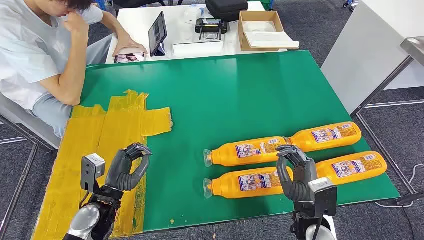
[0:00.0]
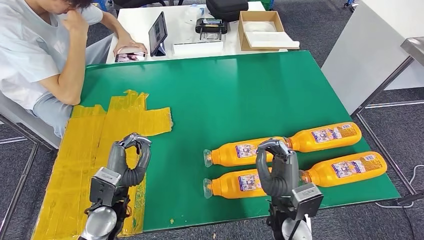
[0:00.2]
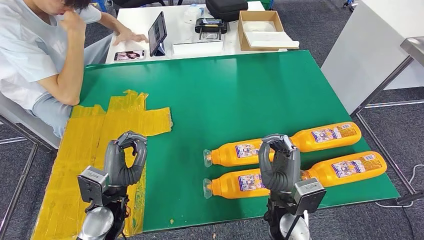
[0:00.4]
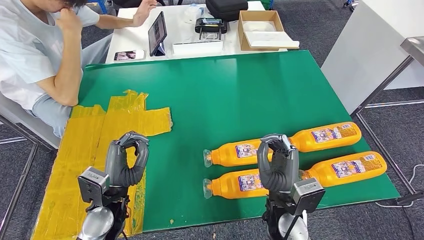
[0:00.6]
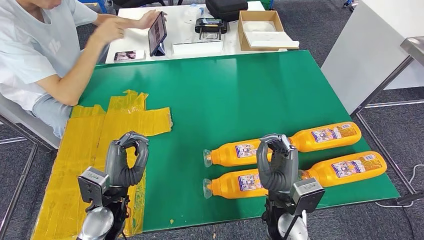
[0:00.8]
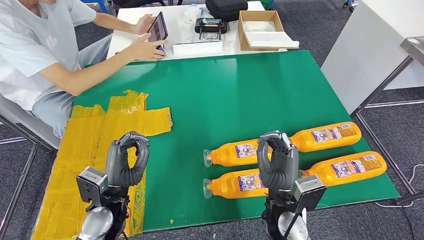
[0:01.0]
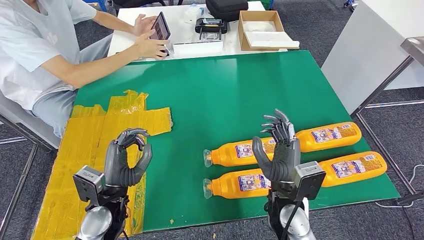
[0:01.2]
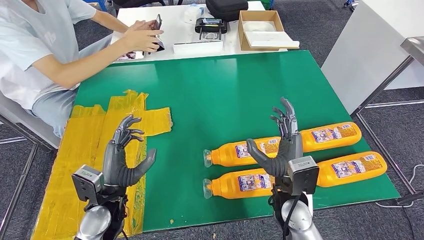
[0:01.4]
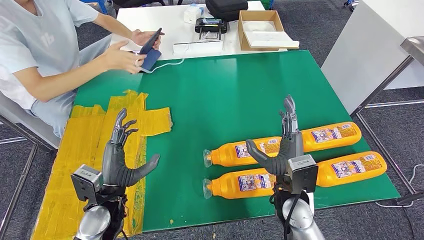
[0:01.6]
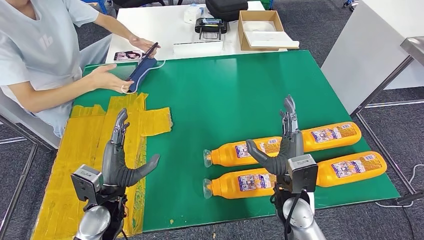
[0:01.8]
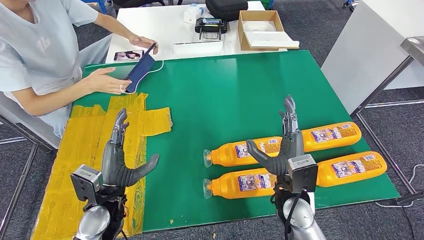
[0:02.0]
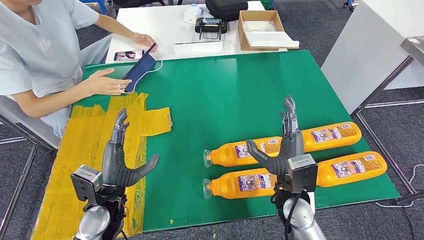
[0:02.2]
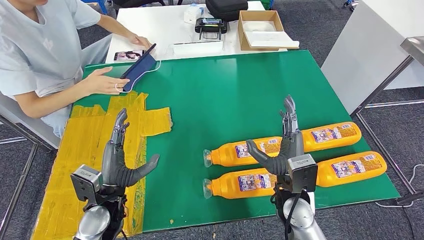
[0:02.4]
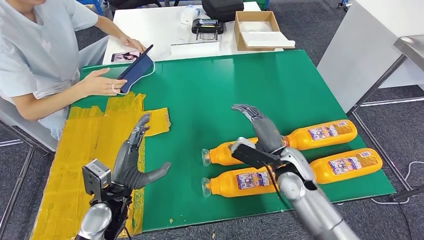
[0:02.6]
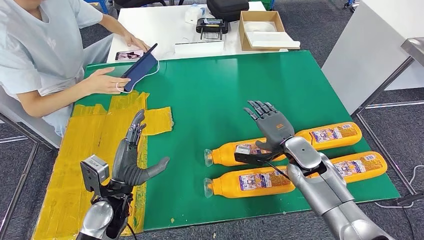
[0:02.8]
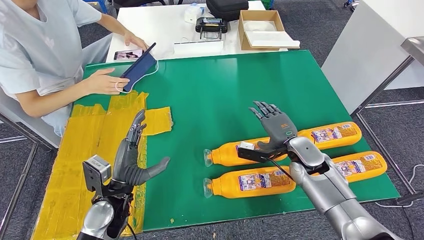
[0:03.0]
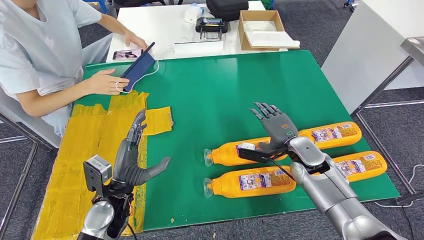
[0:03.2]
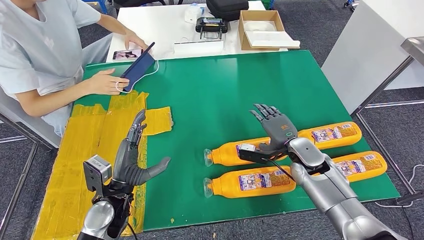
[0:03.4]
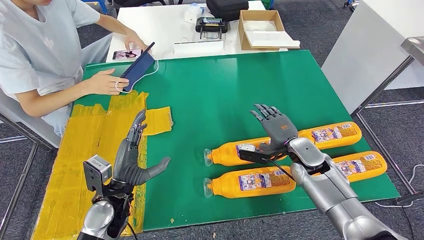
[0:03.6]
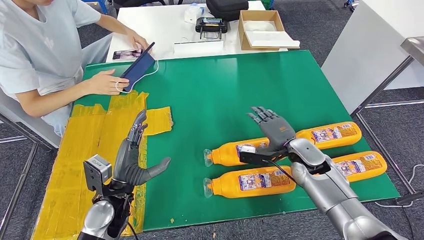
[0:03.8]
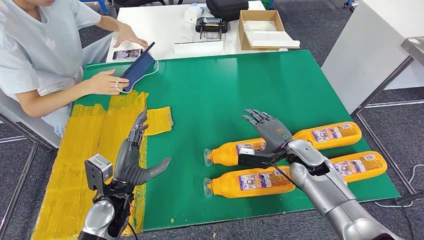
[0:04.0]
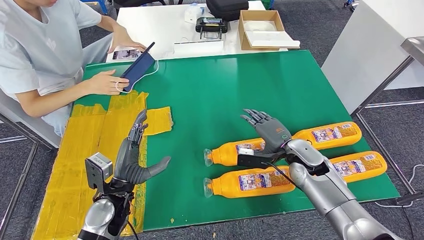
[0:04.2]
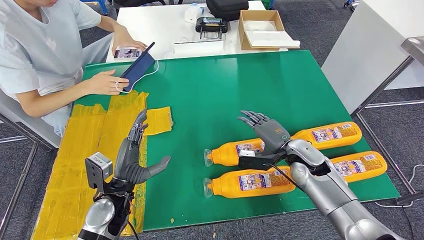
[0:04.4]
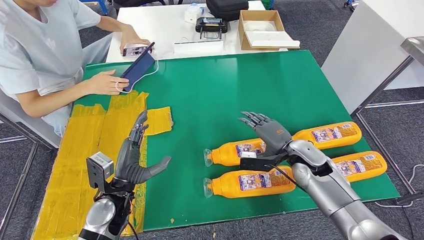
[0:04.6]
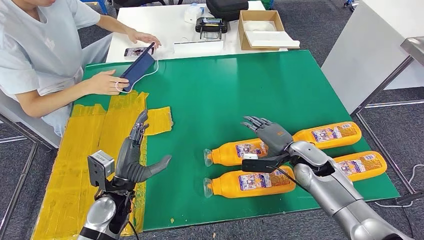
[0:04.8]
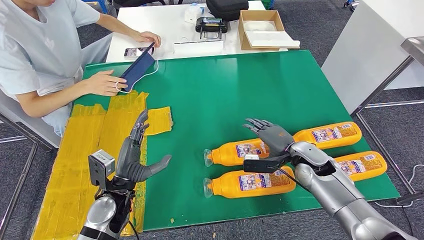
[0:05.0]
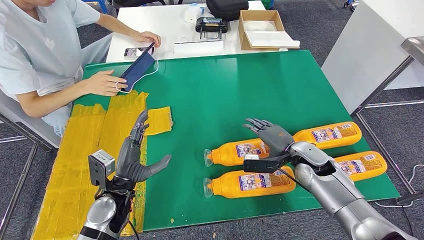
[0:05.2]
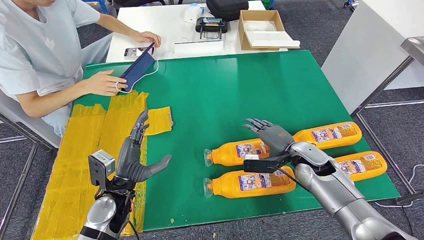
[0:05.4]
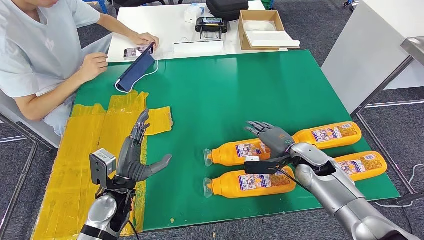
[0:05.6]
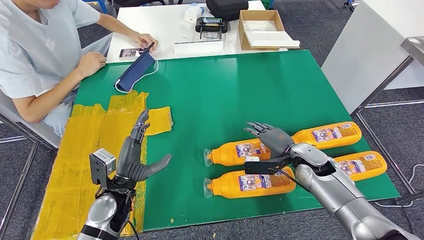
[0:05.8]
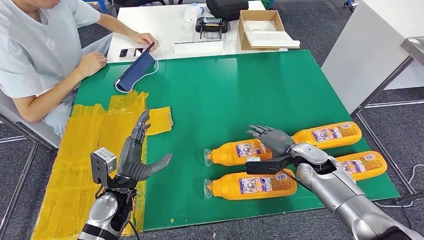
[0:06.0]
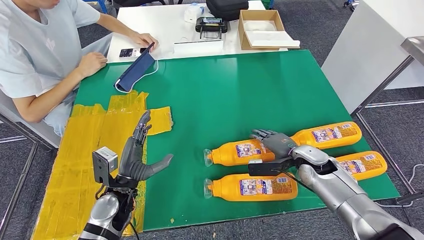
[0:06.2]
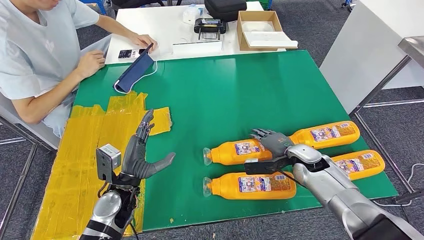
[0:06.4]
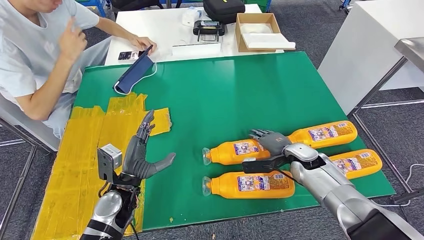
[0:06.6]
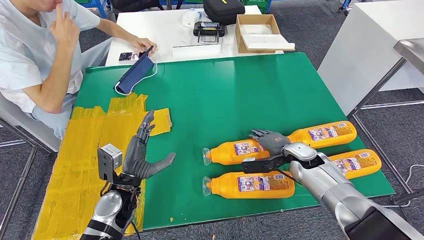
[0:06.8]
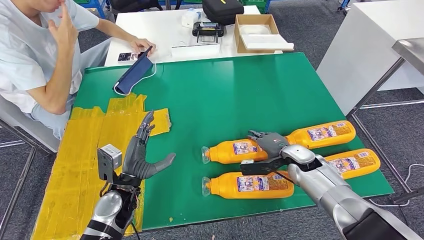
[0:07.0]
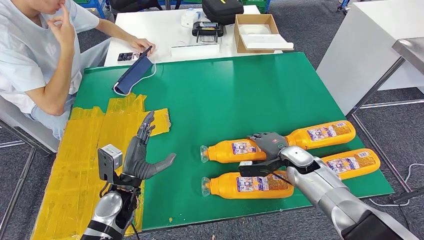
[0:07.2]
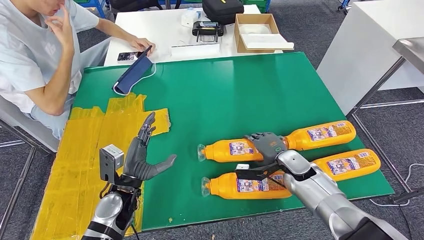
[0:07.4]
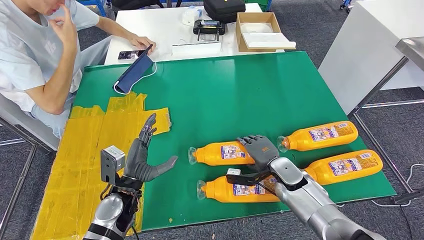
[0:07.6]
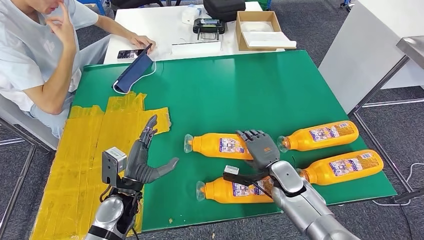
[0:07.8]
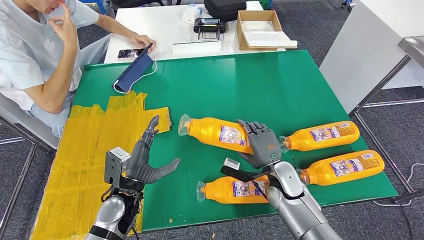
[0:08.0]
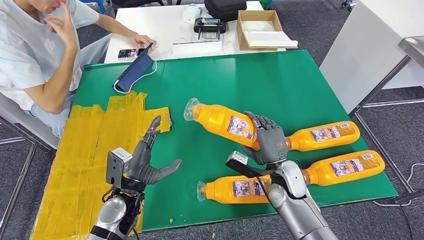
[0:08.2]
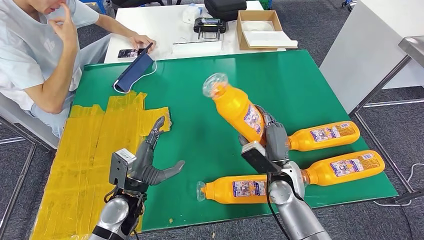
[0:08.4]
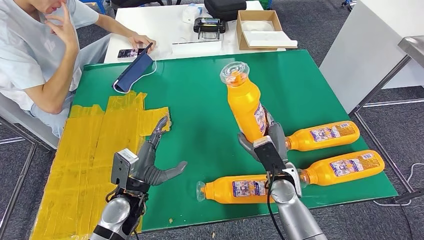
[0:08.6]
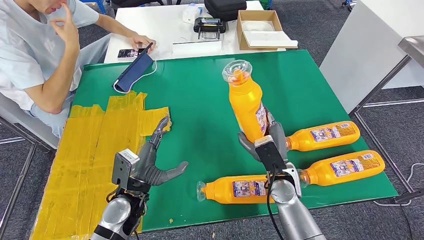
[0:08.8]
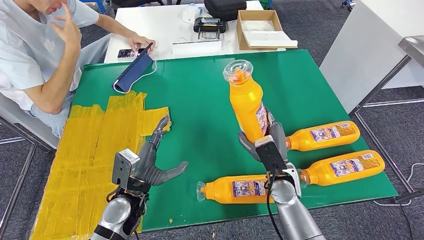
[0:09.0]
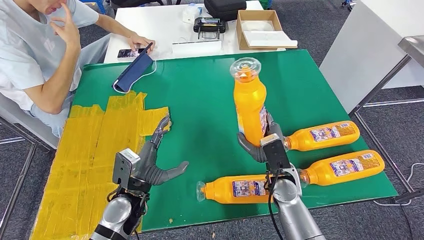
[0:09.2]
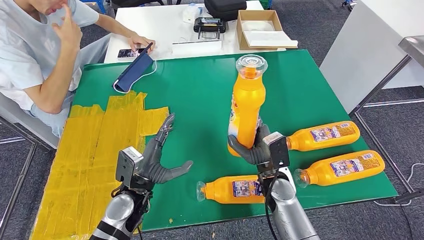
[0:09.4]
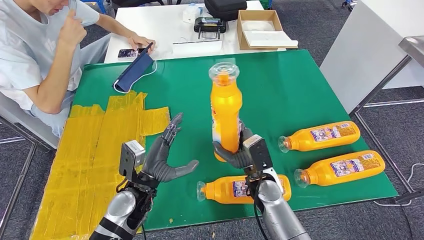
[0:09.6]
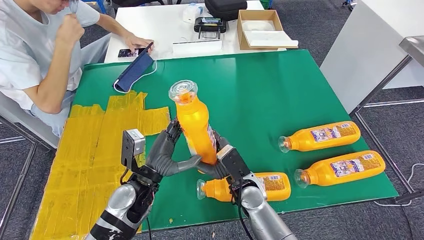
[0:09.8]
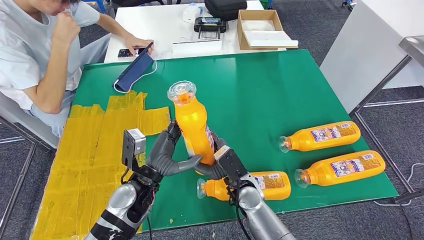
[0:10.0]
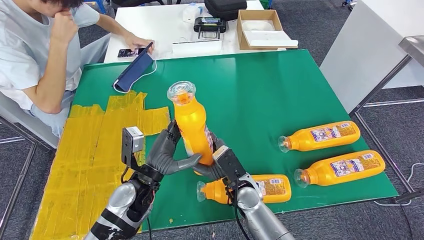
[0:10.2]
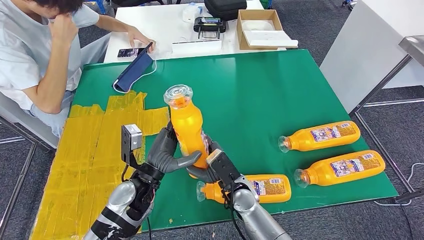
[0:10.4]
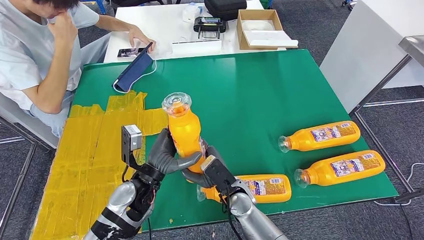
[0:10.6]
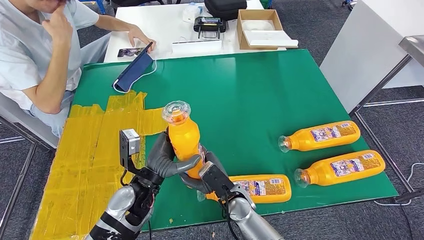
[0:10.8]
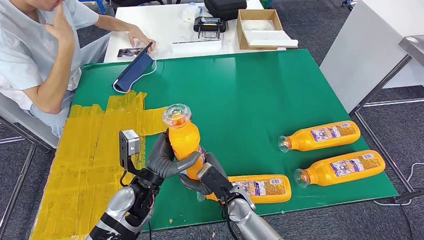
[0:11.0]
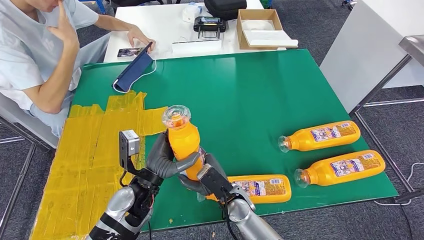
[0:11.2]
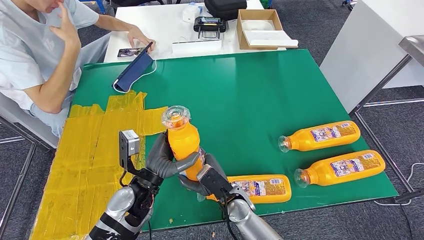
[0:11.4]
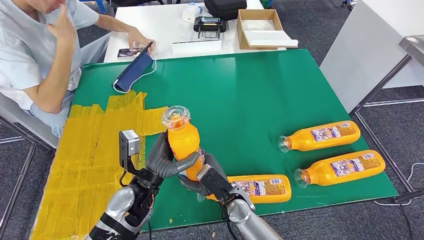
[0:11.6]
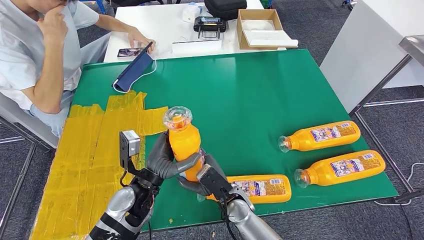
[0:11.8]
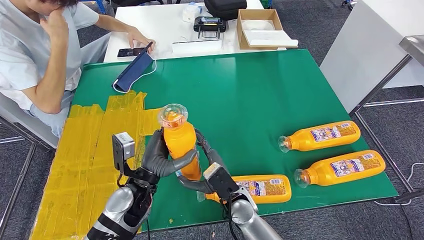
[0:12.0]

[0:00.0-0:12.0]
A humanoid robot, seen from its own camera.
Step, 0:00.0 to 0:08.6: Take the fast-moving consumer goods bottle from the table.
0:03.0 to 0:04.4: The hands move only a little.
0:04.4 to 0:06.0: The hands move only a little.
0:09.0 to 0:10.4: The right hand goes some 10 cm to the left.
0:10.4 to 0:12.0: The hands move only a little.

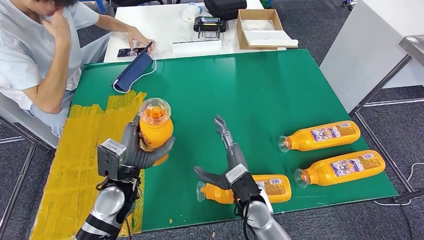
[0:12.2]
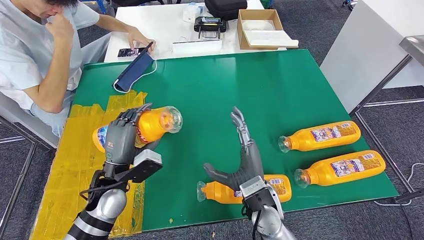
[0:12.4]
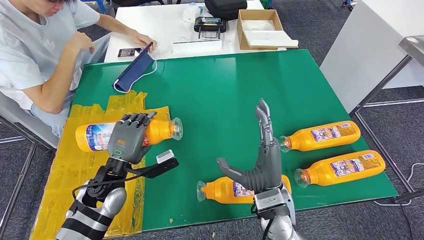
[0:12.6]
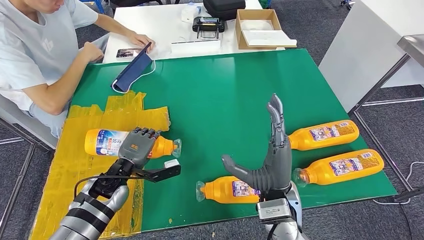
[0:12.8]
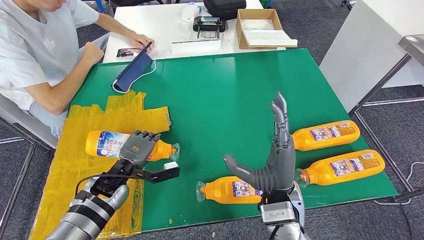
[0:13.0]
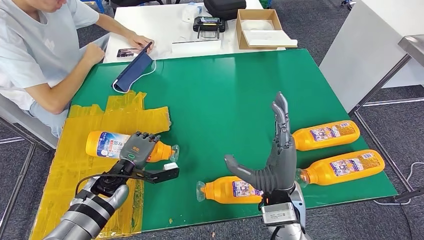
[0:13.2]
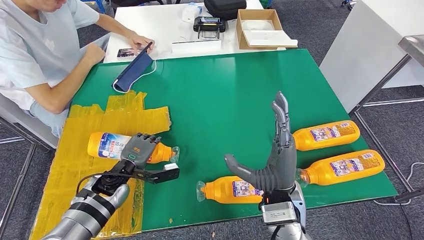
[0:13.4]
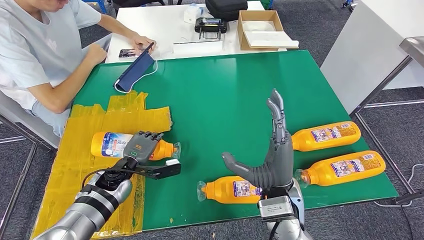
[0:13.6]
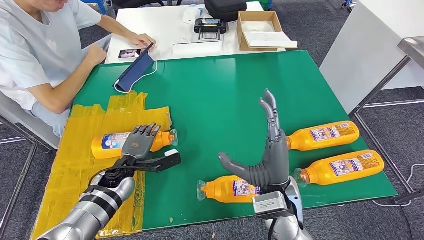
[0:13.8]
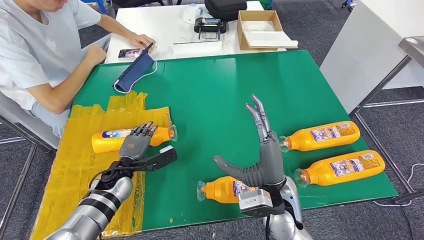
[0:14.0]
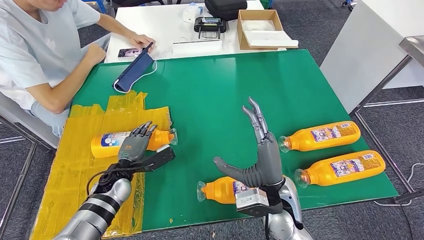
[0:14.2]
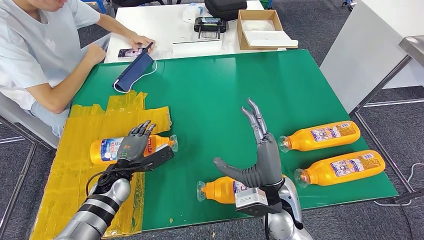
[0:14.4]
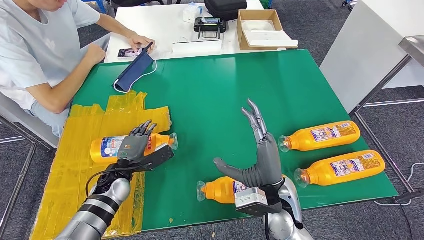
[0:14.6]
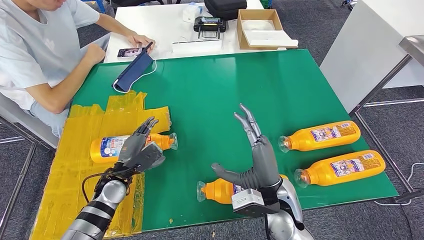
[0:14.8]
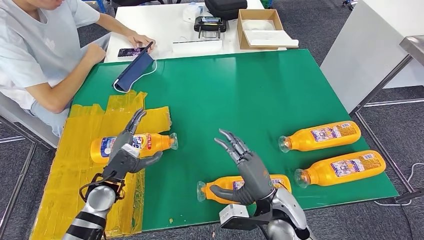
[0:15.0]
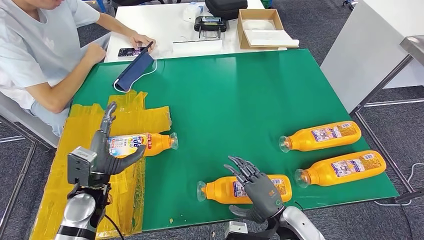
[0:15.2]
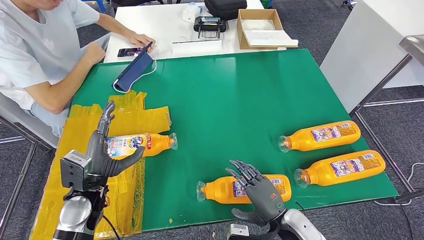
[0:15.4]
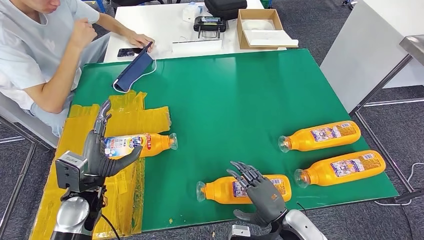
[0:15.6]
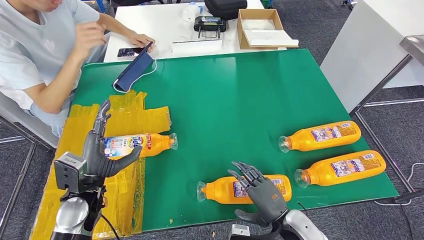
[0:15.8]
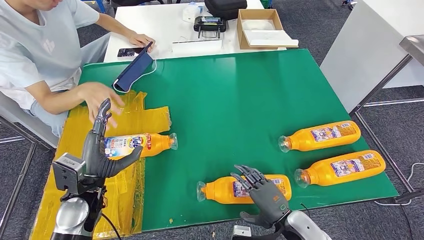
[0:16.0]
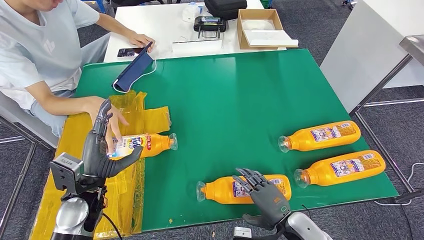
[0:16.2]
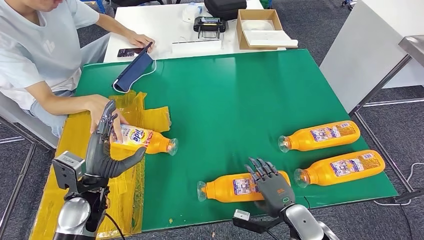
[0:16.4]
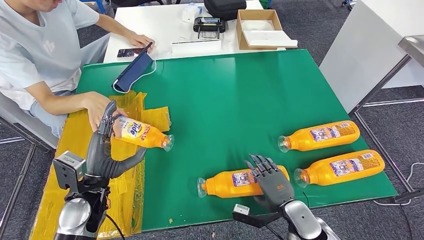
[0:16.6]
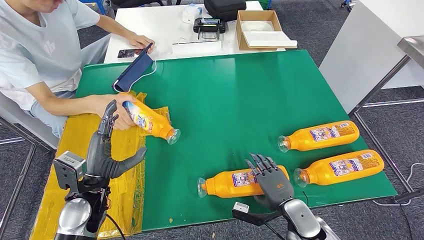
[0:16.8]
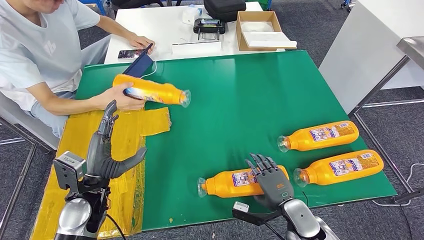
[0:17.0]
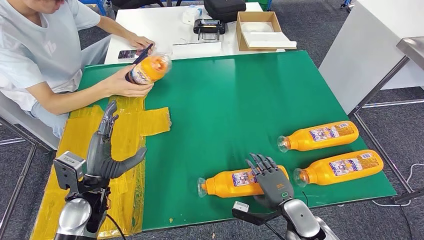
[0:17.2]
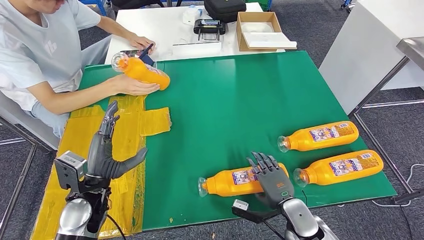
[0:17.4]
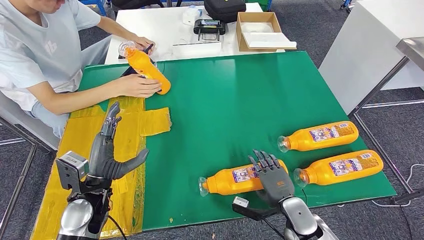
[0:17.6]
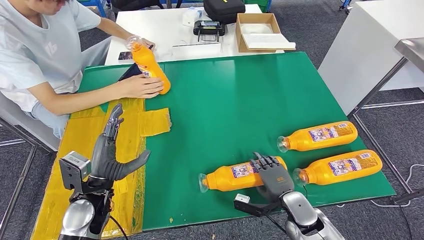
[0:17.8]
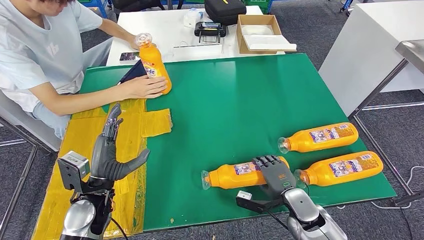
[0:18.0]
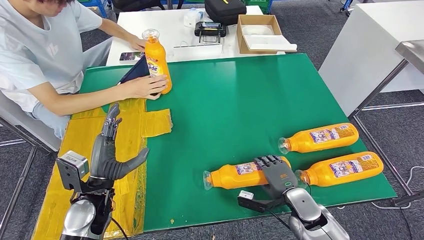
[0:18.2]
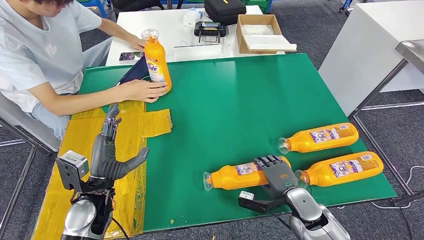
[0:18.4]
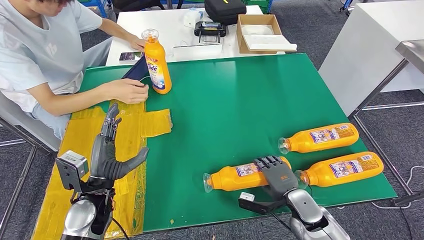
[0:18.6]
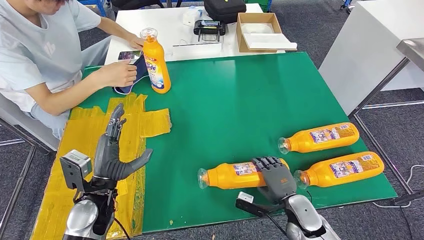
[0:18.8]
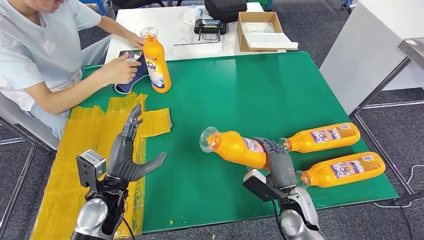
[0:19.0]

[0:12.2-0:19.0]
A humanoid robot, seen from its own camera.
Step, 0:12.2 to 0:14.6: Flip the fast-moving consumer goods bottle to the front side.
0:13.6 to 0:15.0: The right hand travels downward by approximately 5 cm, while the left hand changes place by roughly 5 cm.
0:15.0 to 0:16.2: The right hand shifts about 10 cm downward and to the right. Meanwhile the left hand shifts by roughly 5 cm.
